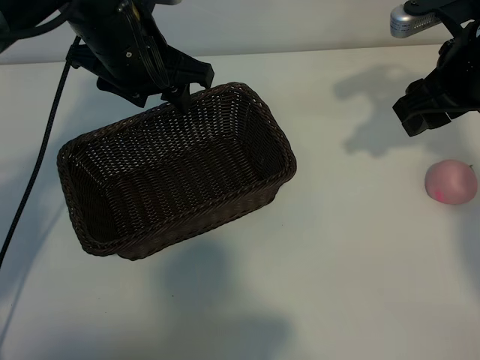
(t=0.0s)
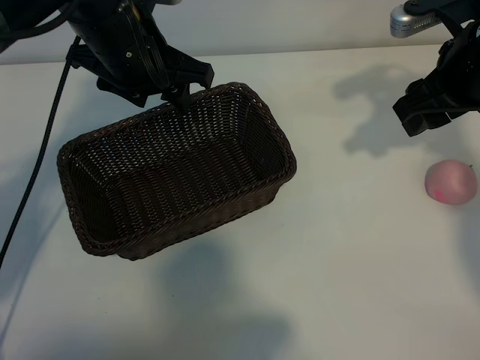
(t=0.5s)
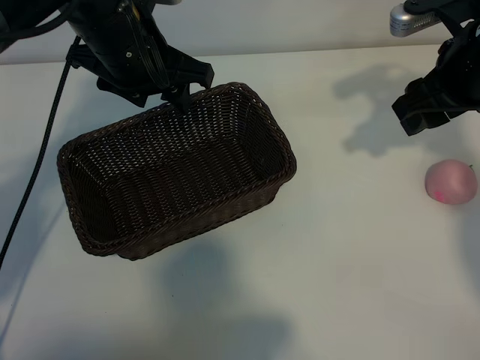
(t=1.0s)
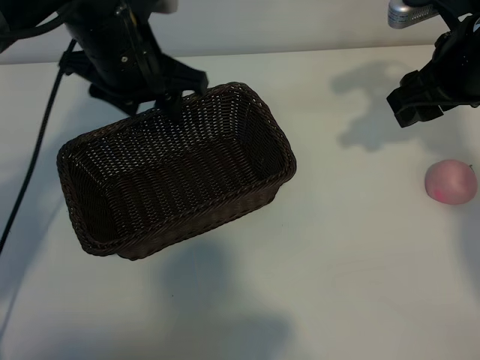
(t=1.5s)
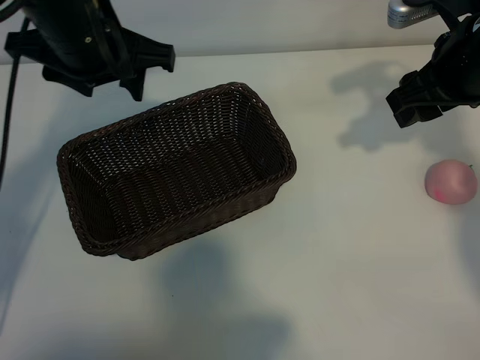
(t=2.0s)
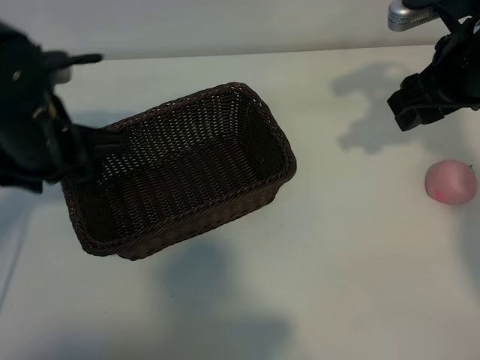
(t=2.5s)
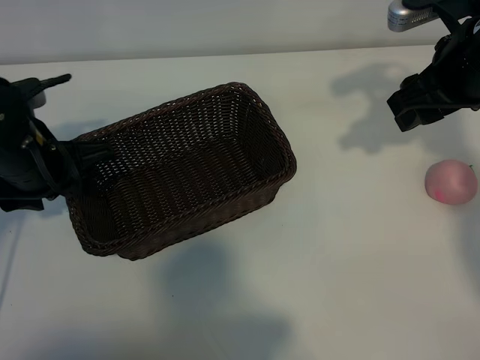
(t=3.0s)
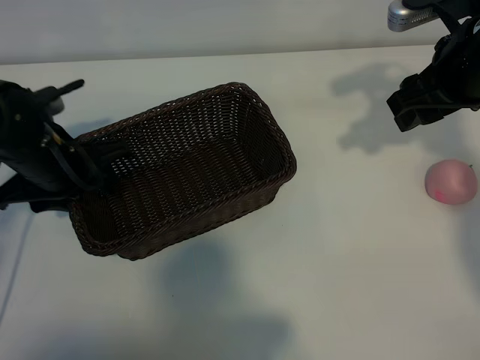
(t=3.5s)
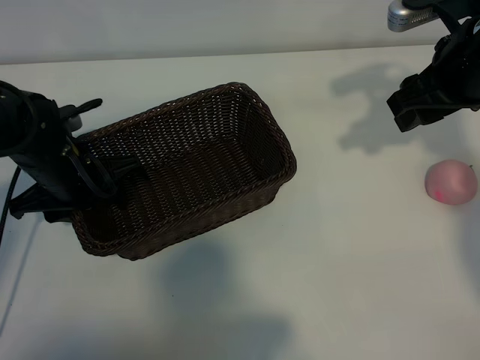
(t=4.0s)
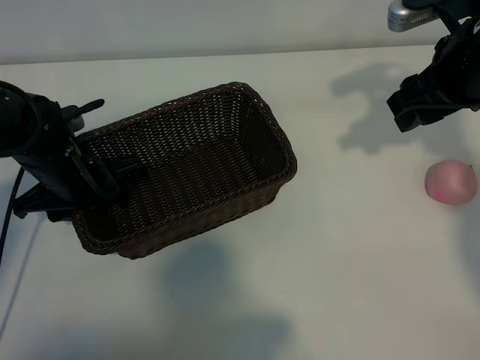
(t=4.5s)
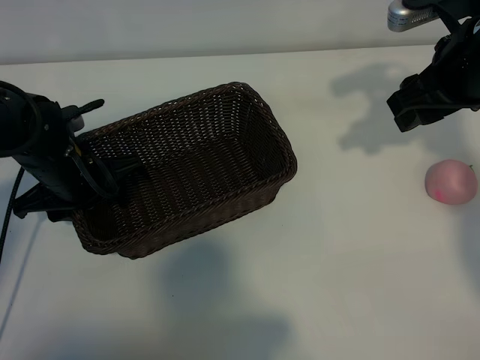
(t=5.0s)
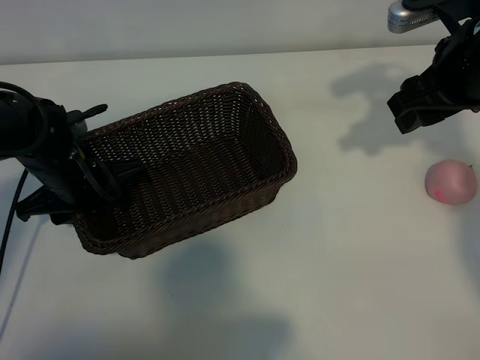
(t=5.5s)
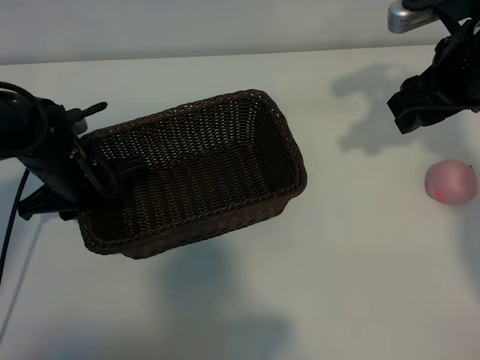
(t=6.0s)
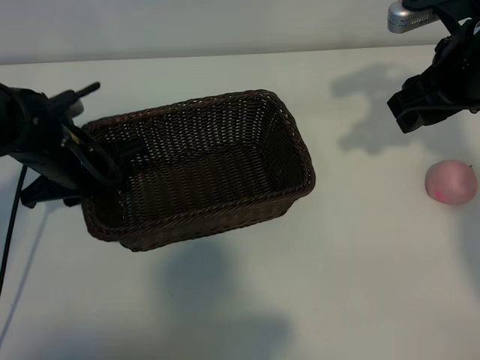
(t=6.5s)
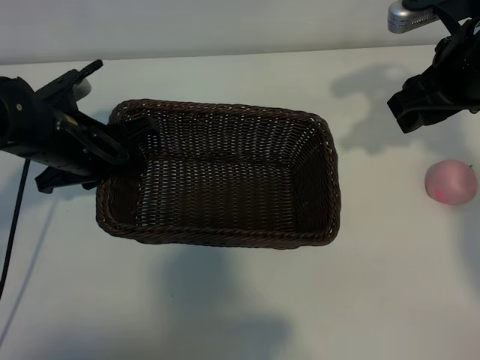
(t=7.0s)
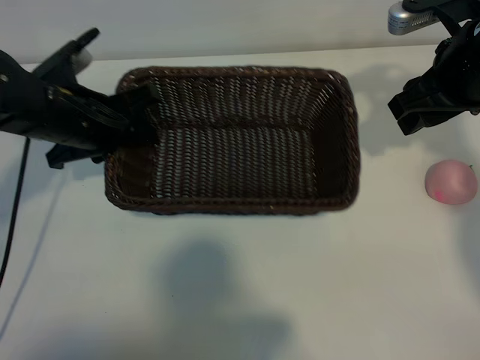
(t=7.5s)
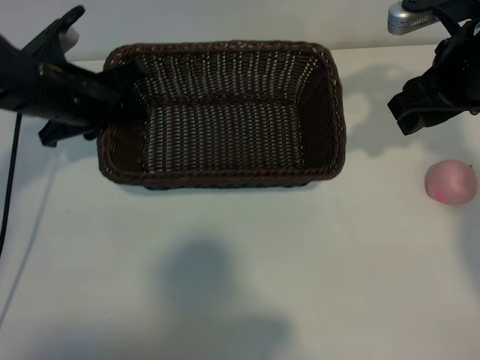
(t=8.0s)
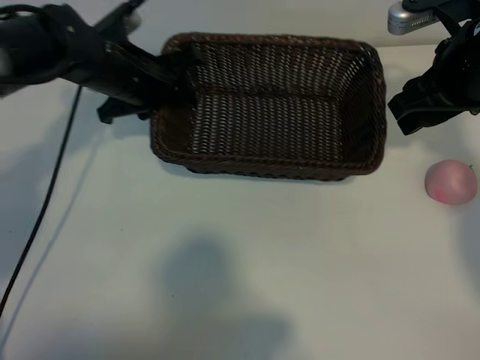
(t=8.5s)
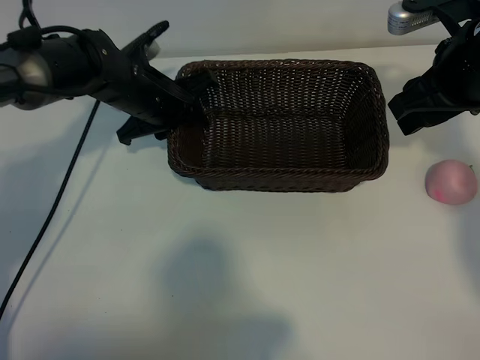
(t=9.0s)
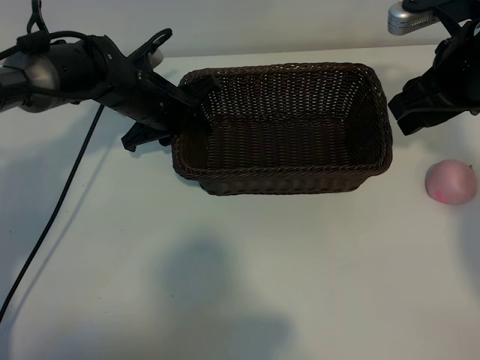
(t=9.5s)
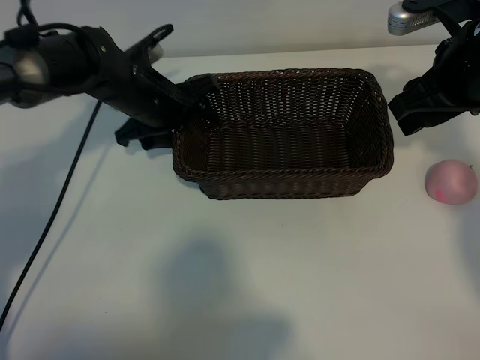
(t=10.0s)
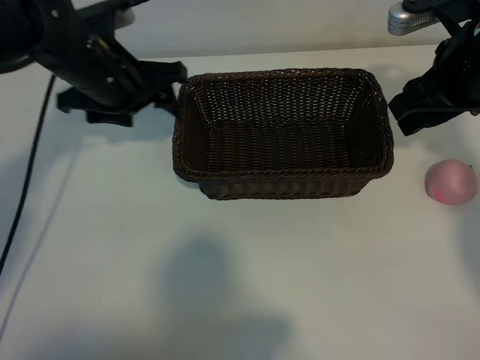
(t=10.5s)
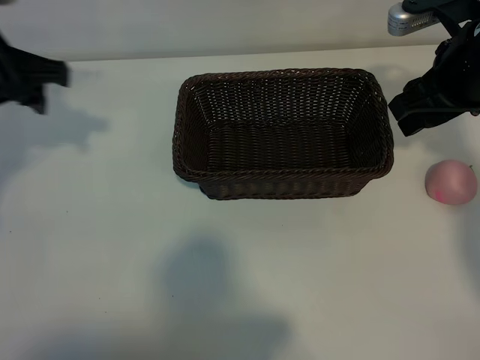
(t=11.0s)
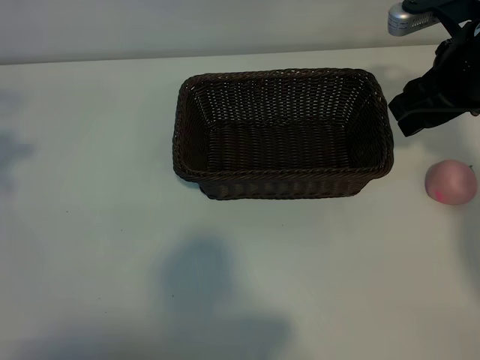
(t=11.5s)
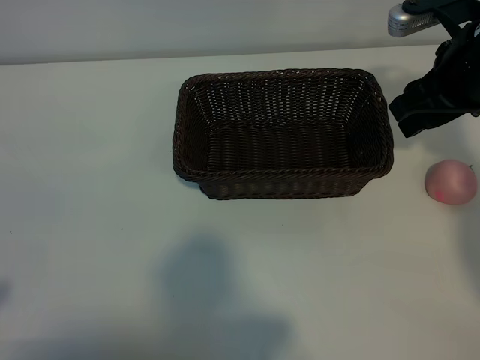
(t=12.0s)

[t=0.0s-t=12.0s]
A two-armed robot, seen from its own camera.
Task of the whole recording: pick up the peach and put it into the basket.
Step, t=1.5s to t=6.0s: Grasp the basket with left gripper.
Step, t=6.5s to t=10.0s: Place the basket in the center of view with left gripper.

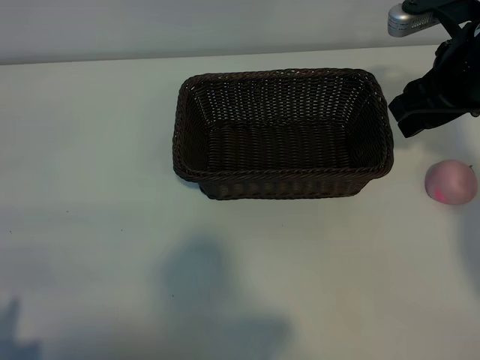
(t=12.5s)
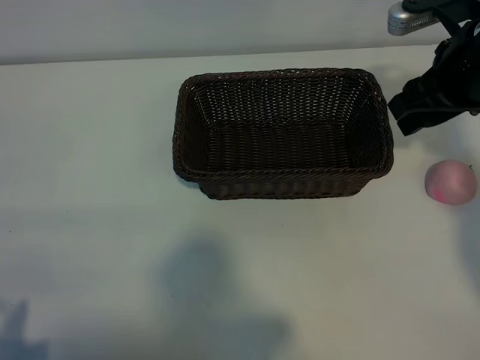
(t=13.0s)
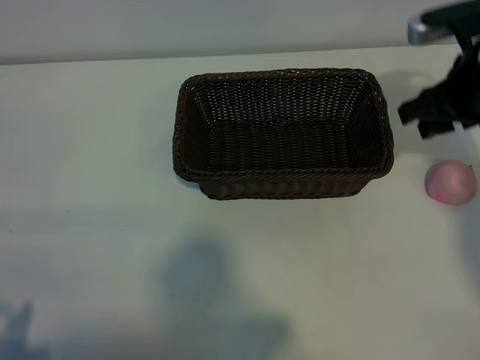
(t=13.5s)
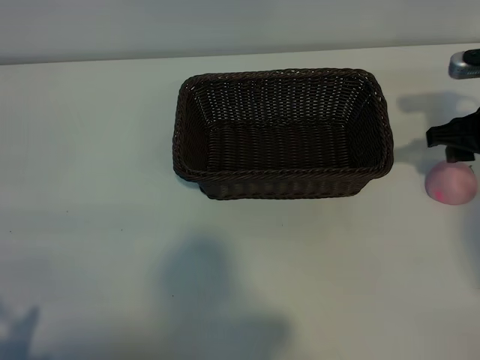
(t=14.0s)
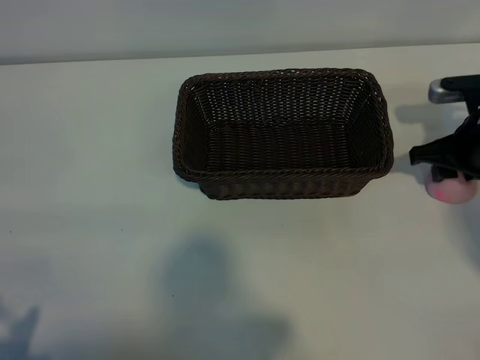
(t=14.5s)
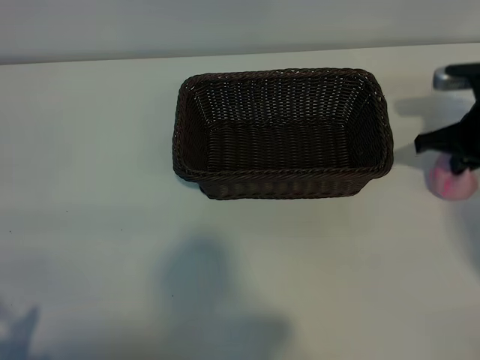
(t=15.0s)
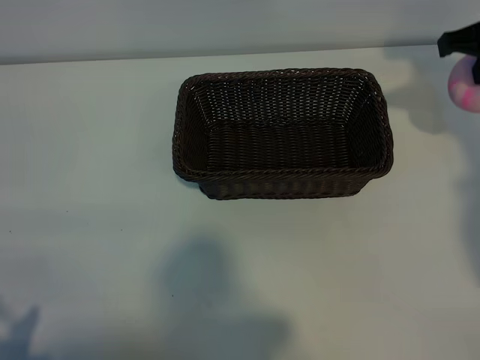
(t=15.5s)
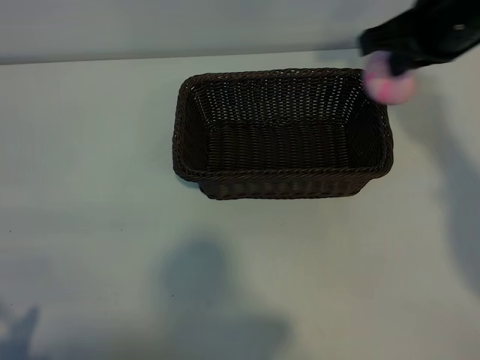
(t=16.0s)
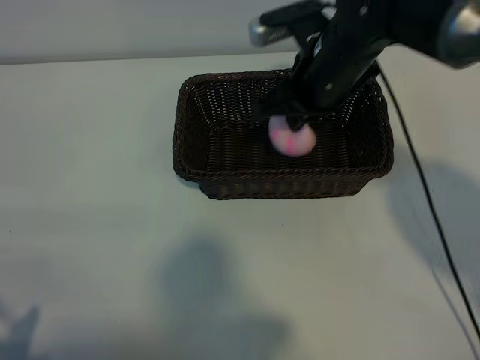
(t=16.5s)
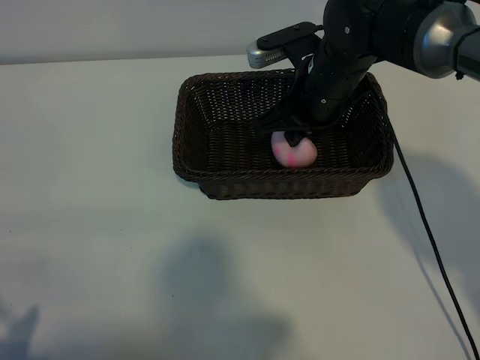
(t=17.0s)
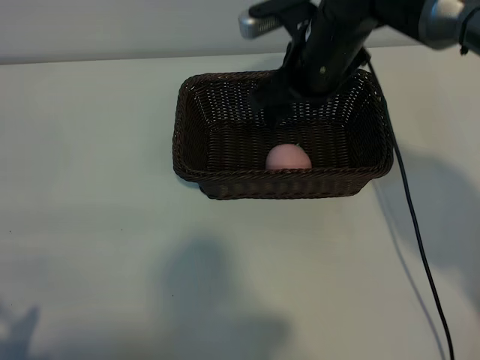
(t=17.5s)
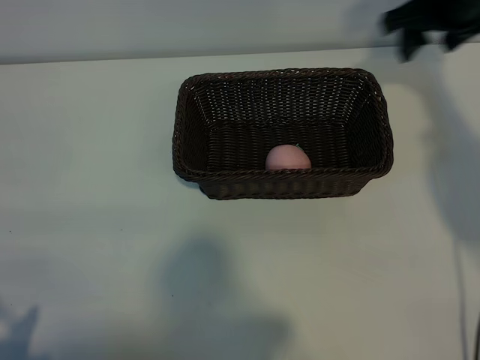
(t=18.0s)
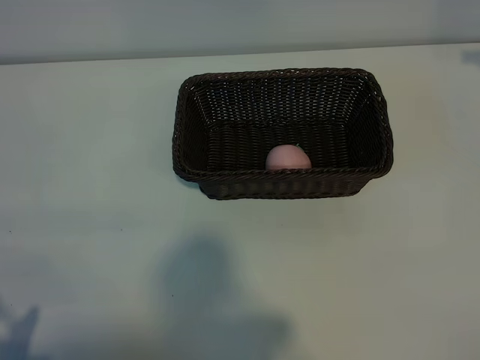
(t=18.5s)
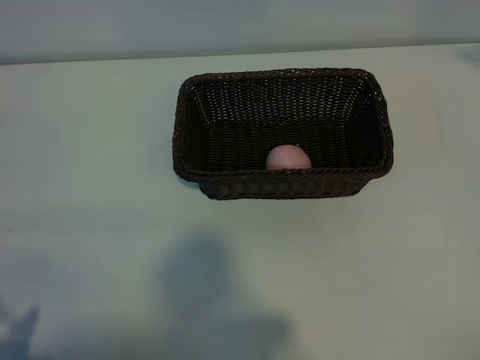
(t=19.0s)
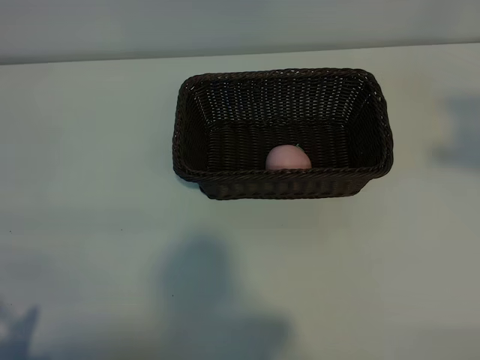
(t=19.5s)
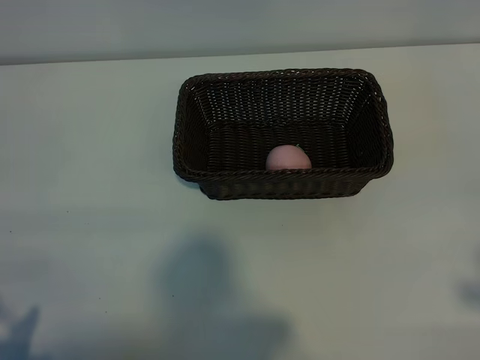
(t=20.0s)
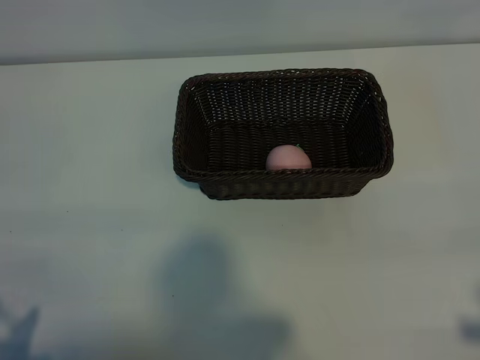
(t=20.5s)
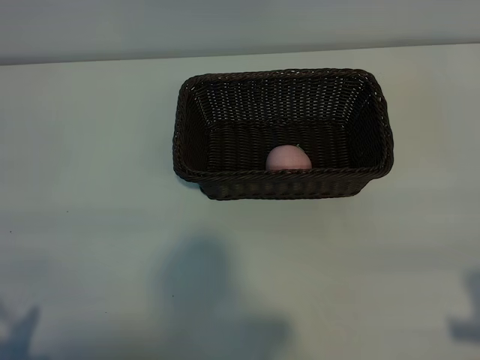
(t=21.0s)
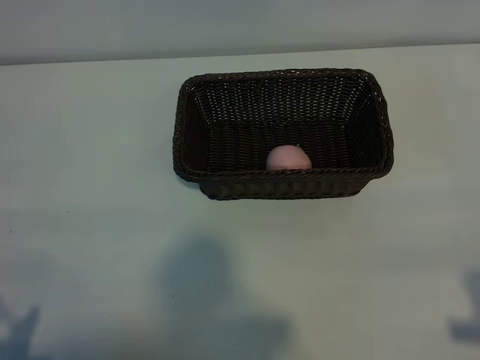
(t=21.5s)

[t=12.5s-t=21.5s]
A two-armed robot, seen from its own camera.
Task of the whole recording: pick up the peach and put it into the basket.
Step, t=12.5s to t=14.5s: Grasp the peach with right gripper.
Step, t=15.0s to t=17.0s: Place the peach in the basket with right gripper.

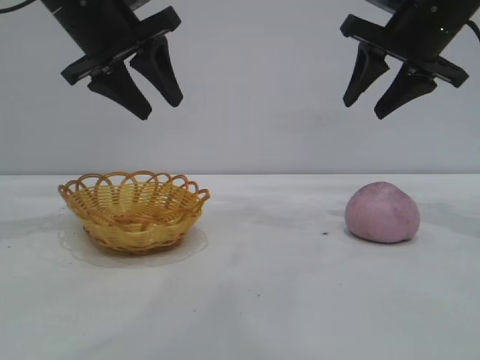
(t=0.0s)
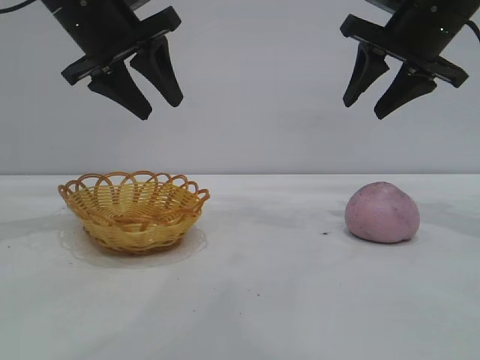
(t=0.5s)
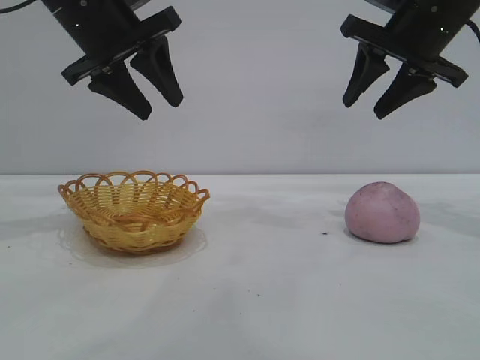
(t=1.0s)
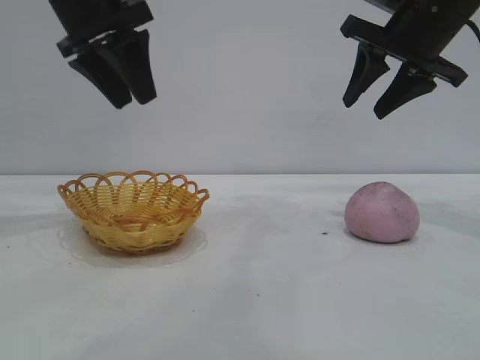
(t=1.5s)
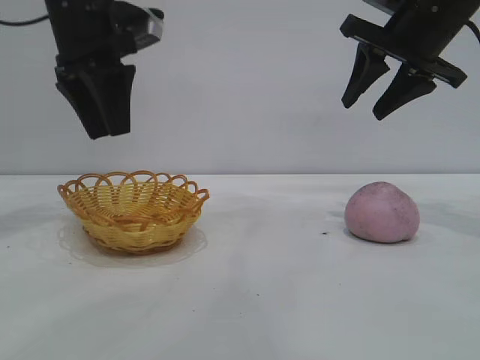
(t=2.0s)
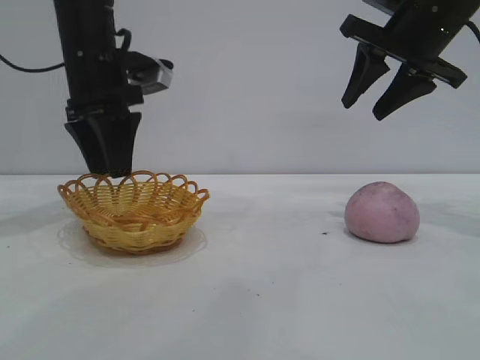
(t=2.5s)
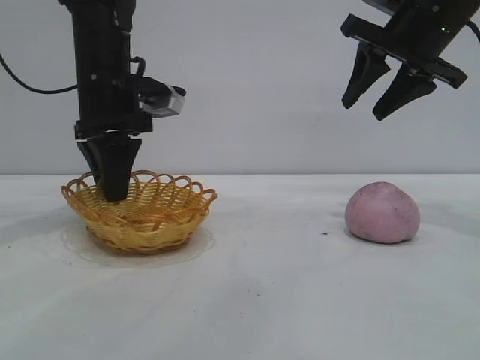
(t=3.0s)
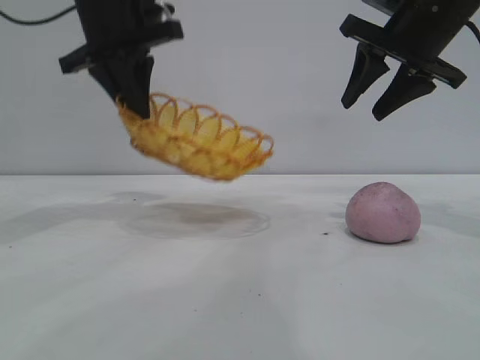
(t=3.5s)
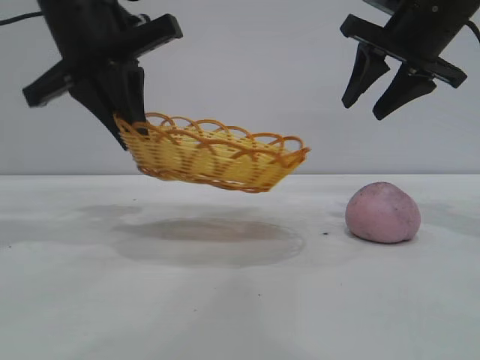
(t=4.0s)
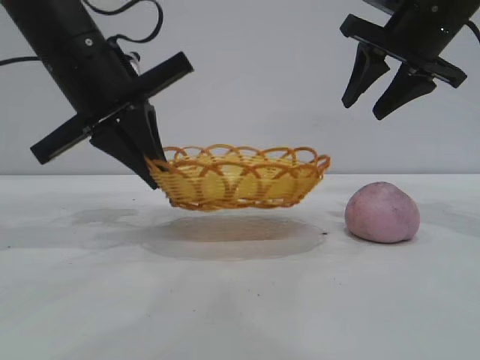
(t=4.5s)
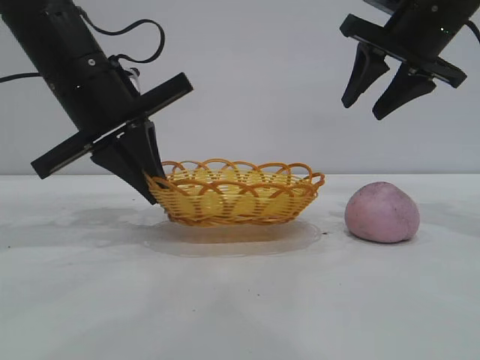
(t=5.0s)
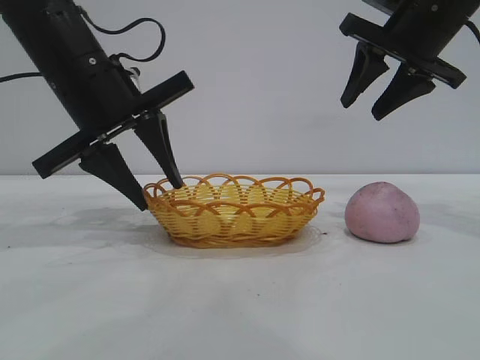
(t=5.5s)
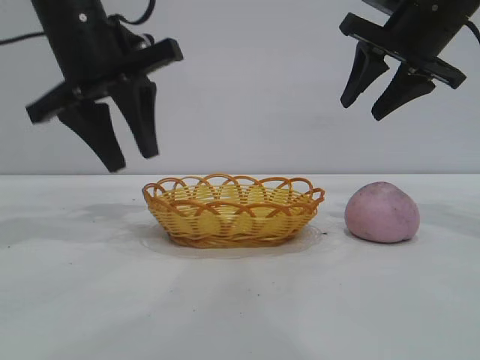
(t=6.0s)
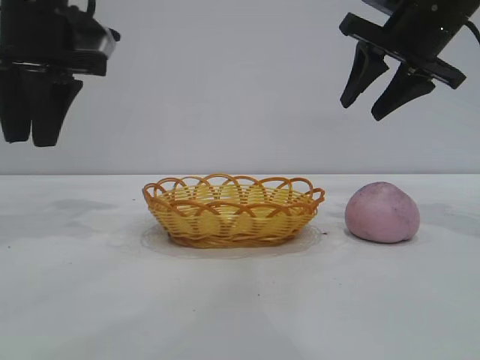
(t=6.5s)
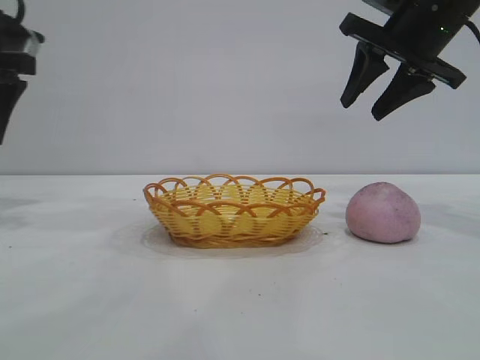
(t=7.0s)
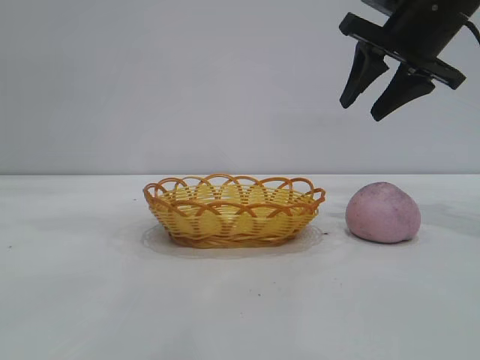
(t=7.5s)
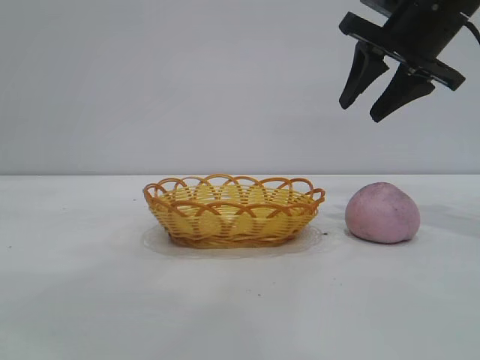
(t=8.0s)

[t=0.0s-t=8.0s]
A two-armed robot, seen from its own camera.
Task of the whole recording: pick up the peach and put it into the basket.
Step, t=0.0s to t=6.0s: Move the basket to the center of view.
